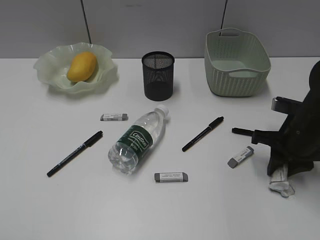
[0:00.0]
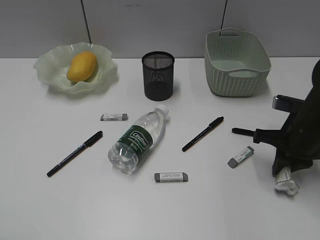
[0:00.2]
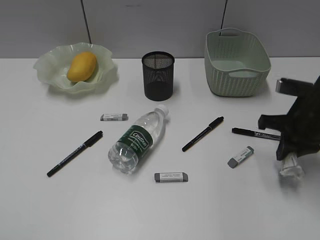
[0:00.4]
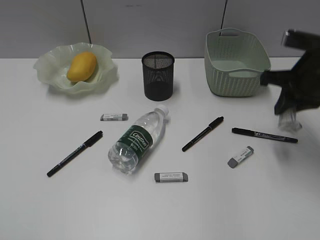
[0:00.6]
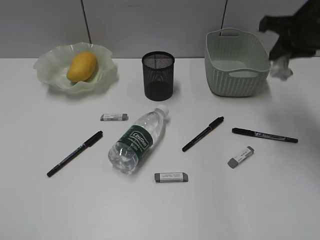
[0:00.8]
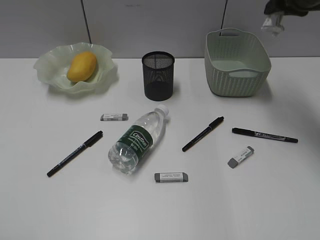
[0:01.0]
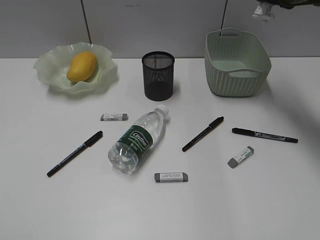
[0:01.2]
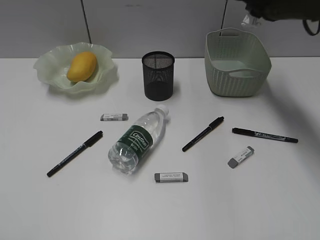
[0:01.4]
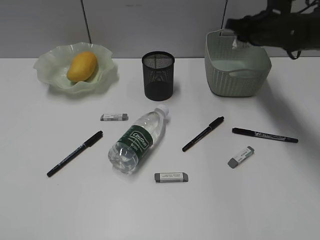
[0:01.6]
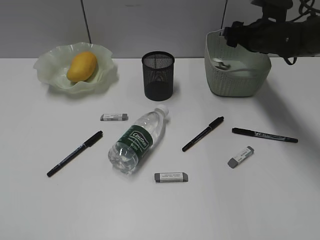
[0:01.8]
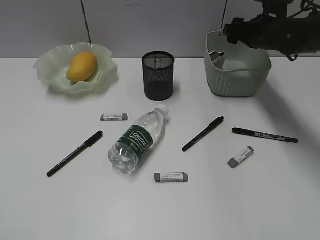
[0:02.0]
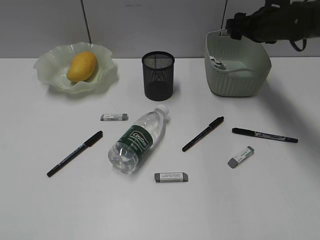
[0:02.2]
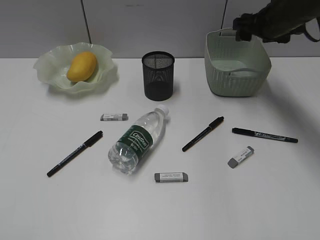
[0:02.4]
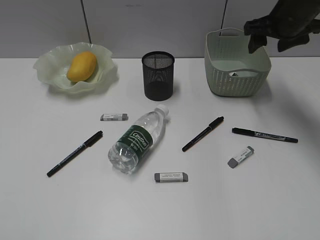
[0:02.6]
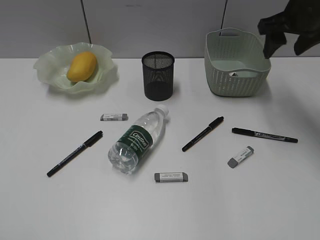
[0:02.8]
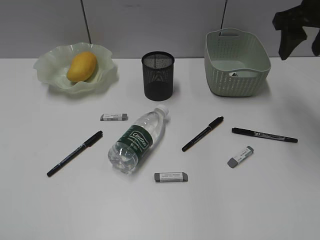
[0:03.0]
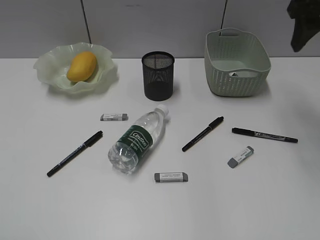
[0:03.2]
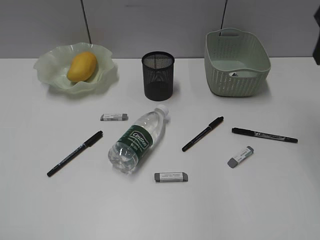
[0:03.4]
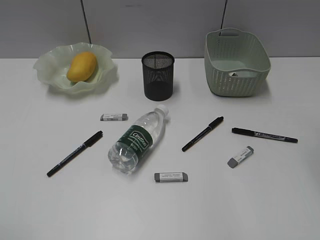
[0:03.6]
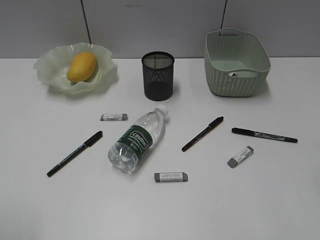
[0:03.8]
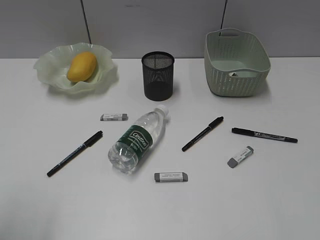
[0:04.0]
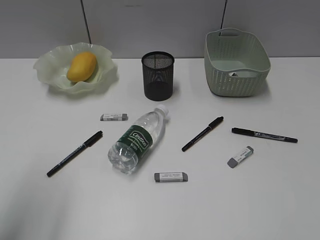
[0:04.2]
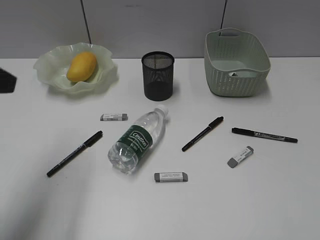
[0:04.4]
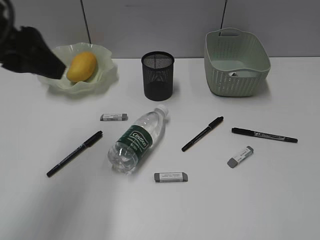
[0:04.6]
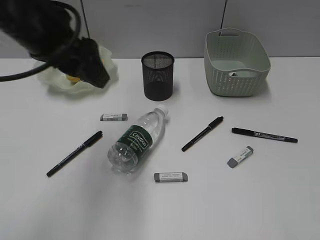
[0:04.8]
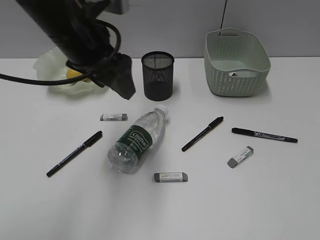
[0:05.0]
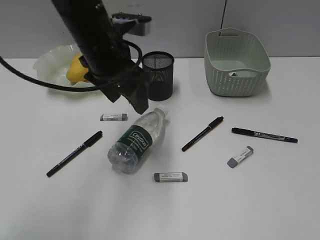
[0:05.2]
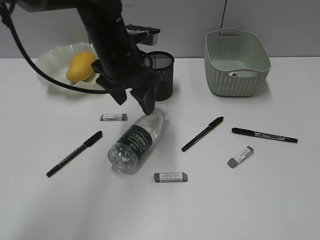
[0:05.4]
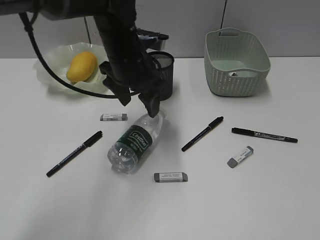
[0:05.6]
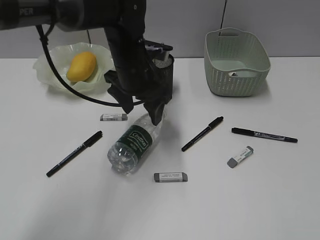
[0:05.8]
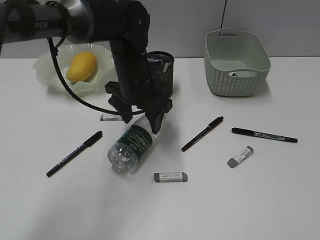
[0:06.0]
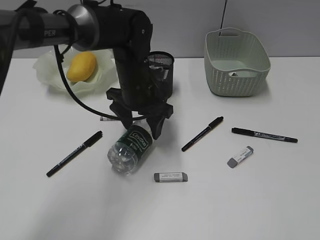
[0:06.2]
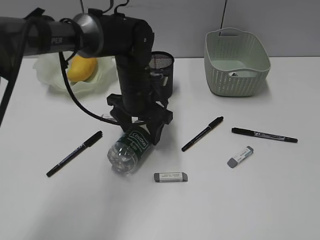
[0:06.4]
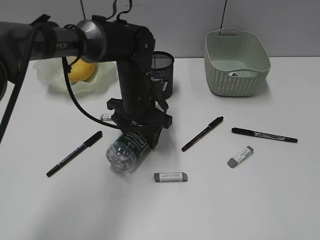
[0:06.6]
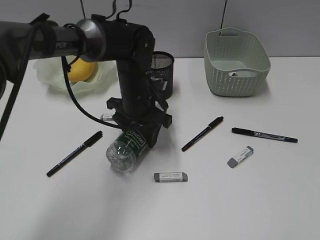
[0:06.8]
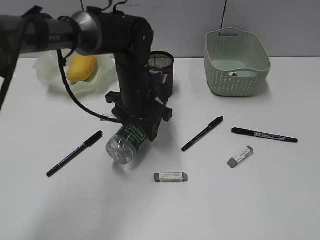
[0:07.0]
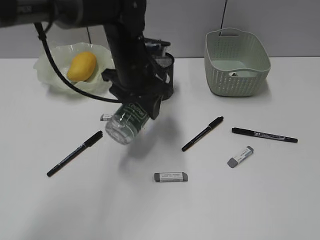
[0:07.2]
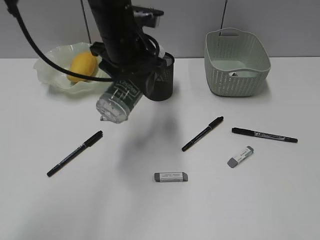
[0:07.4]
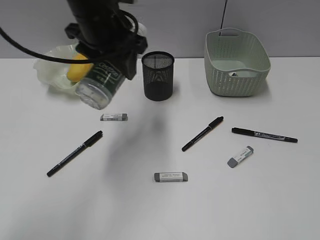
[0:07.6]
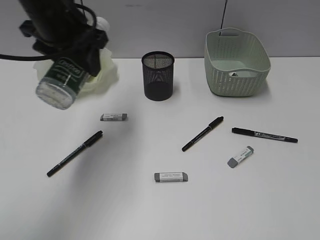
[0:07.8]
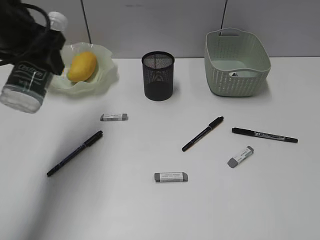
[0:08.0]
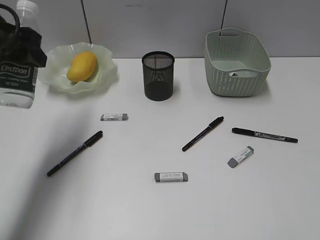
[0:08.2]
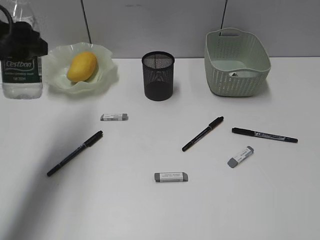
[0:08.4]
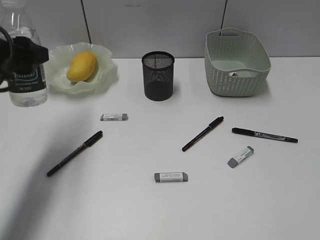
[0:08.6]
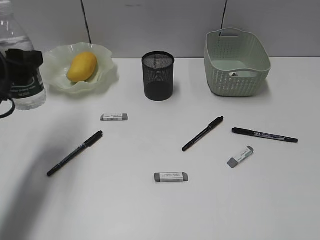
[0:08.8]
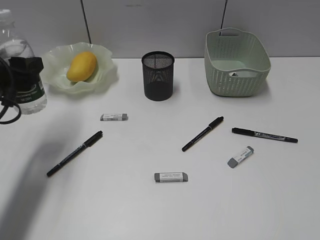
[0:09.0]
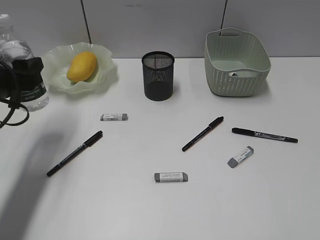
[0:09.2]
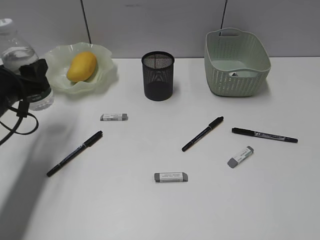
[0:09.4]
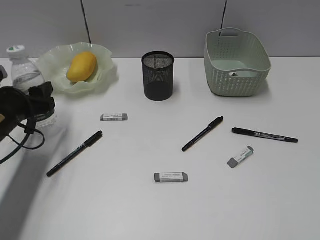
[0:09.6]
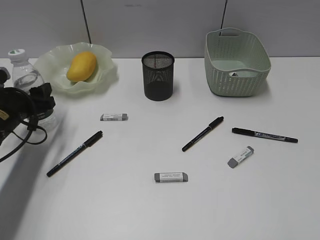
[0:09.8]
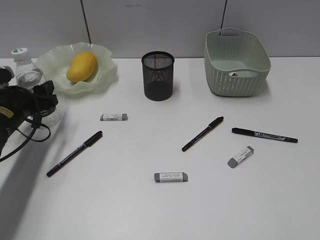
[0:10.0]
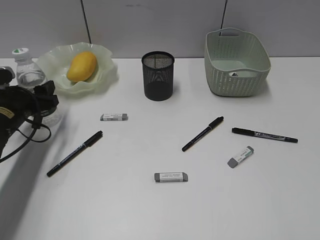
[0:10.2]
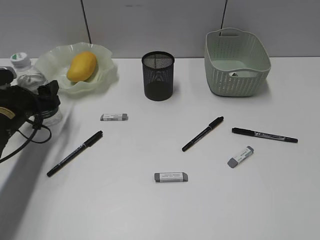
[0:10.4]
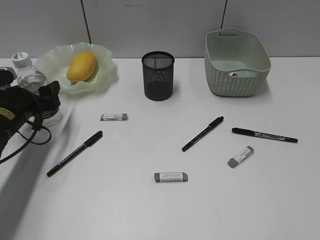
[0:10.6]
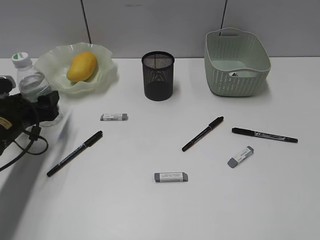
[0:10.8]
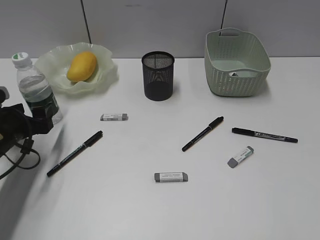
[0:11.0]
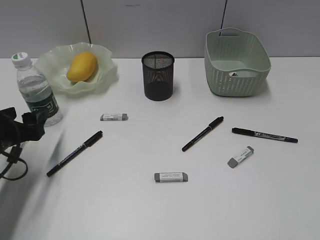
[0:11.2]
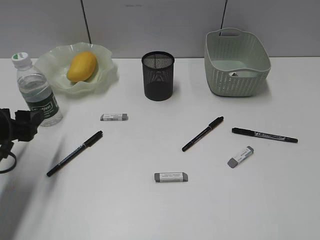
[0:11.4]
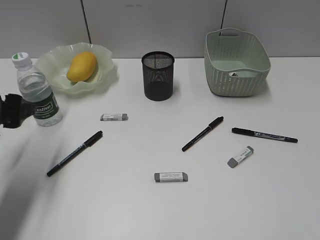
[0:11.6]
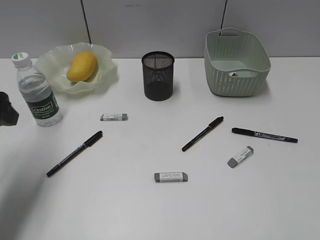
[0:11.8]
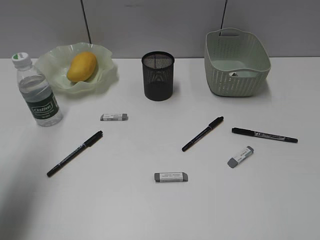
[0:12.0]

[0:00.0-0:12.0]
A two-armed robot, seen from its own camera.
Step, 0:00.2 to 0:01.8: Place the waste paper in the basket with right gripper.
Step, 0:02.0 to 0:06.8: Grasp the bottle with left gripper.
Step, 0:07.0 to 0:11.0: Stand the bottle with left gripper.
0:00.0 to 0:01.6: The right gripper goes approximately 20 cm forward, and travels upward and back again, approximately 20 cm each way.
0:01.6 to 0:03.0: The right gripper heads upward and backward, covering roughly 15 cm, and opens its fingers.
0:03.0 to 0:04.4: The left gripper travels forward by some 20 cm. The right gripper goes some 35 cm backward.
0:04.4 to 0:06.0: The left gripper heads to the right, forward and downward, covering roughly 30 cm.
0:06.0 to 0:07.6: The left gripper moves upward and to the left, about 15 cm.
0:07.6 to 0:09.0: The left gripper is displaced to the left, downward and backward by roughly 20 cm.
0:09.0 to 0:10.4: The left gripper is displaced downward and forward by approximately 10 cm.
0:10.4 to 0:12.0: The left gripper is displaced upward and backward by approximately 20 cm.

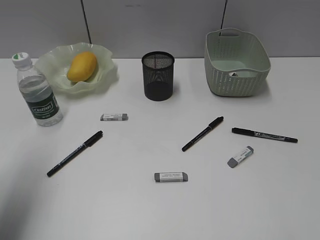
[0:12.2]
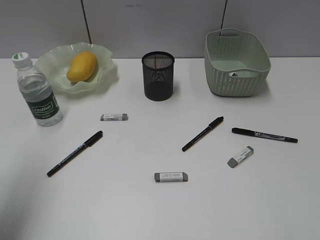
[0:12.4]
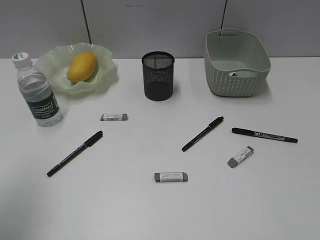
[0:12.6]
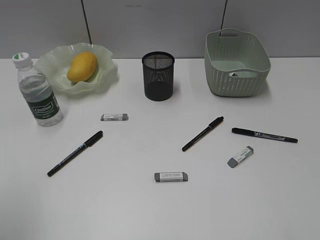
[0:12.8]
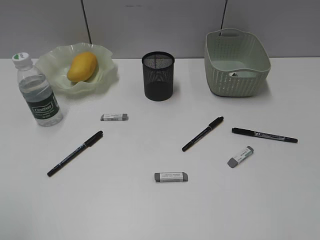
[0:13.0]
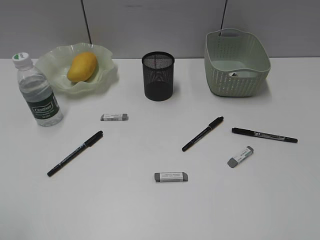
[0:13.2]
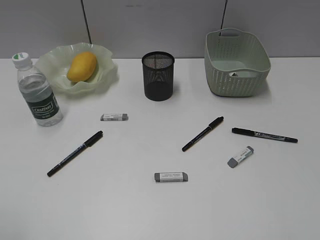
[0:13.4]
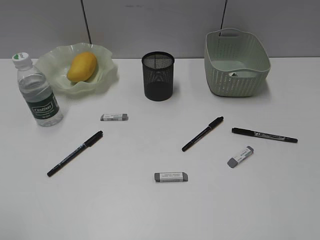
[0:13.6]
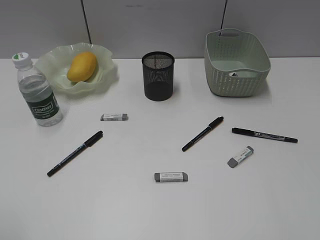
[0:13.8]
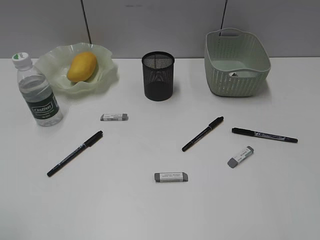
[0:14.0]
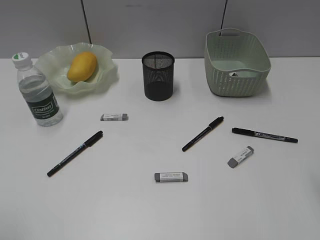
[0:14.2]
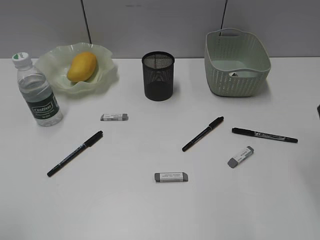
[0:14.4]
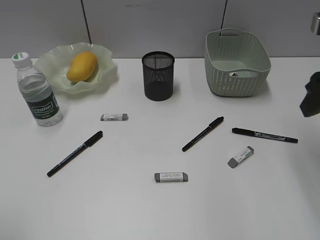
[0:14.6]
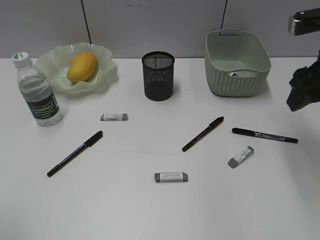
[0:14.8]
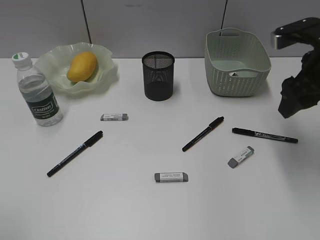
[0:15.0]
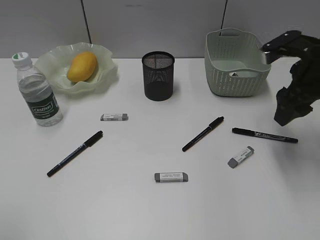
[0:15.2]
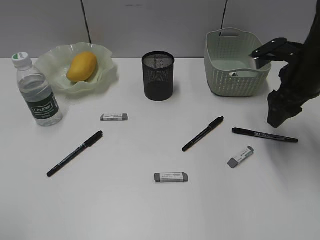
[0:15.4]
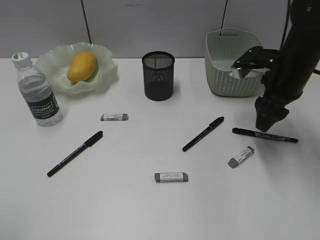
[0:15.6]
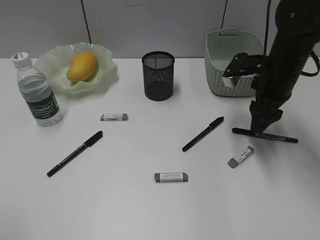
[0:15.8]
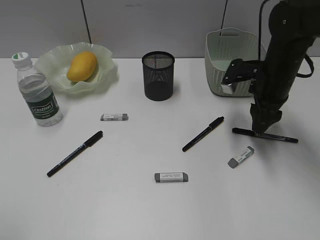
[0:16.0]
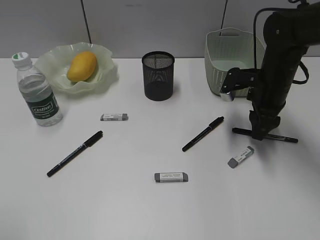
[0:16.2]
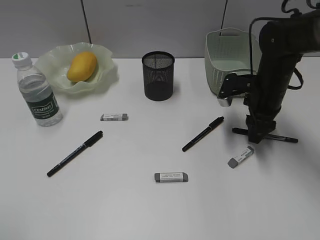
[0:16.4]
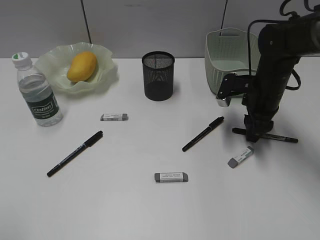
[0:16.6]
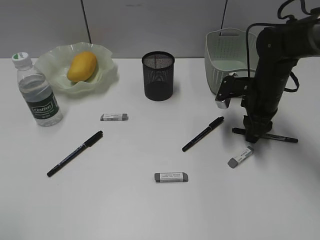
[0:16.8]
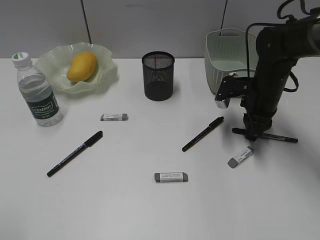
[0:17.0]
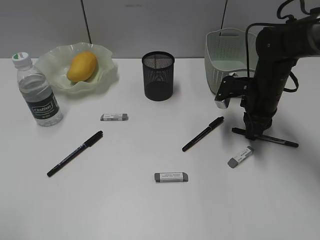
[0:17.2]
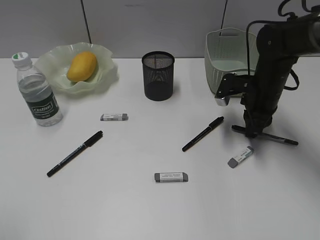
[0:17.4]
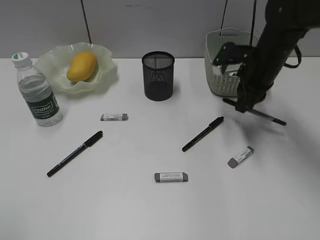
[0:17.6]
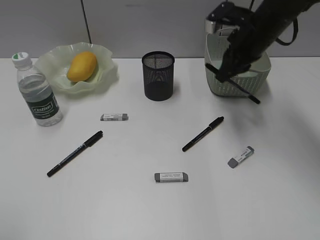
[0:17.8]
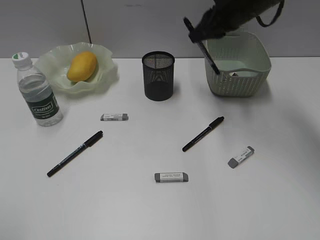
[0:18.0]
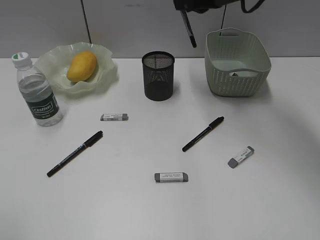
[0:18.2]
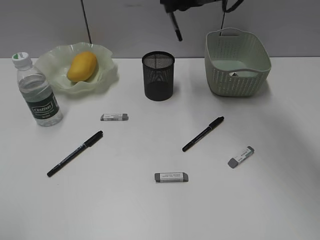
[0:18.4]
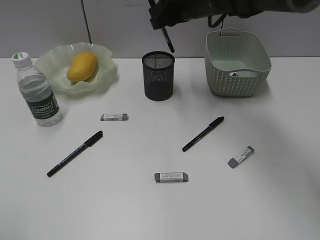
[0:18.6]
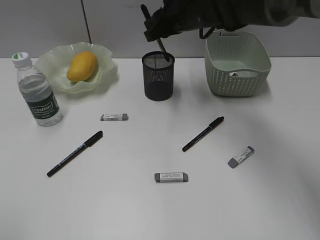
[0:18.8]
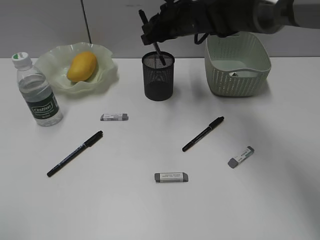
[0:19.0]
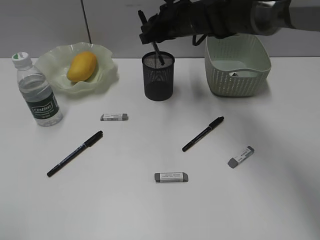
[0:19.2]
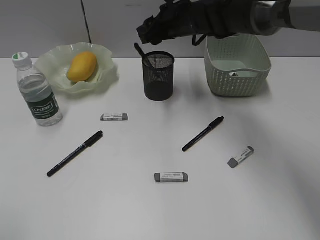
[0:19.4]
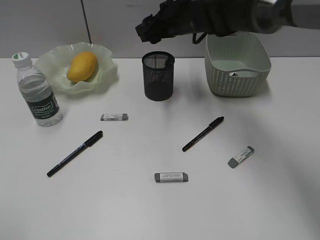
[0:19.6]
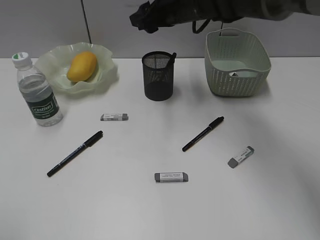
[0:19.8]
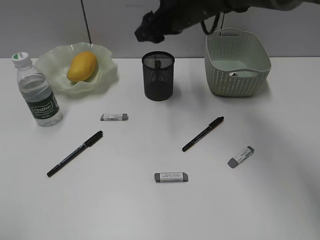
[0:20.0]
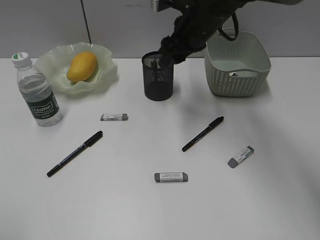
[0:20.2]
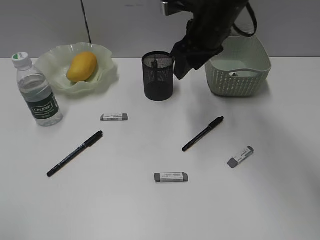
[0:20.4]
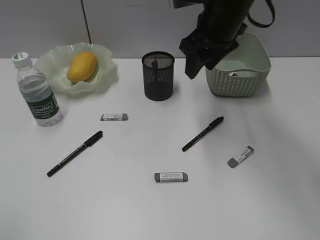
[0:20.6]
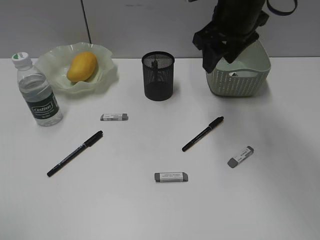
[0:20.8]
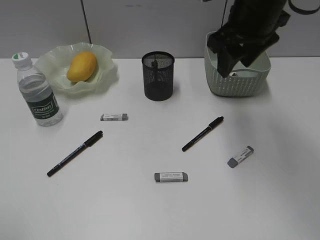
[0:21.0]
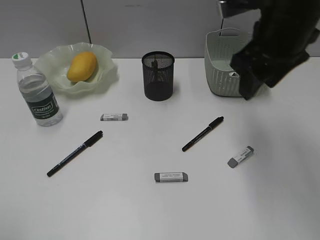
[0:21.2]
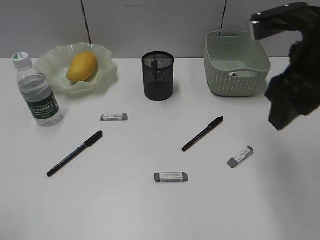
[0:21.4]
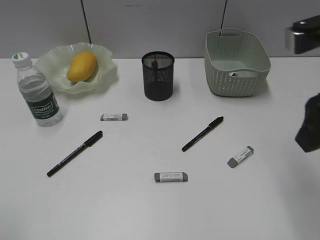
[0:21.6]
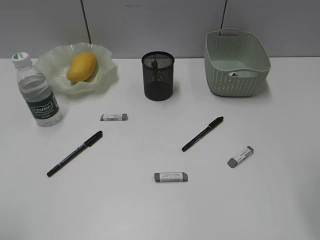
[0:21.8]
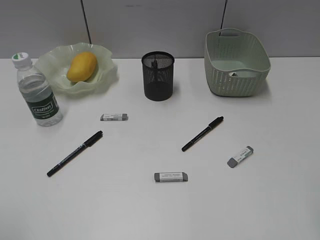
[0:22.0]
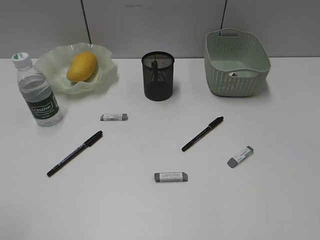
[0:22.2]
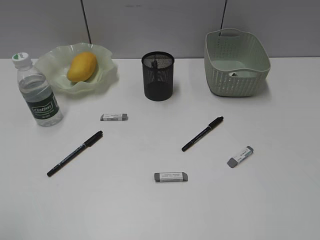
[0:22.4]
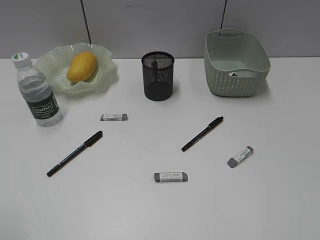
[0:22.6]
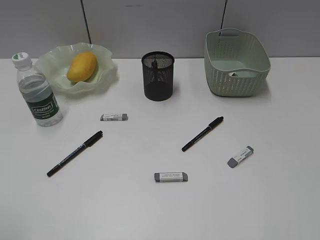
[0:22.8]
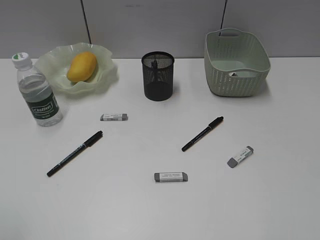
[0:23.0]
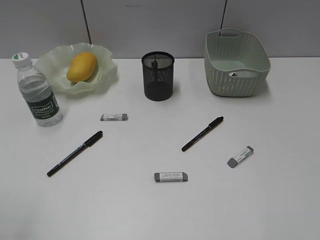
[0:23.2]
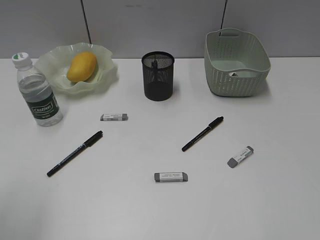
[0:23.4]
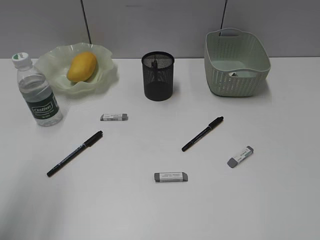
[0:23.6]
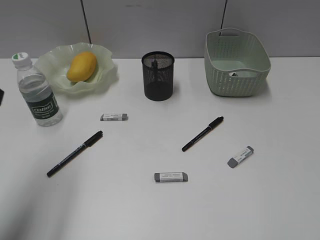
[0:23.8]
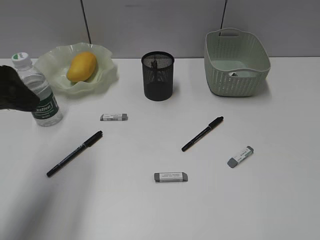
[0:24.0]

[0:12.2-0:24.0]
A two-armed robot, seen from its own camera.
Step, 0:12.2 to 0:17.2: Grasp the black pen with right gripper.
Step, 0:17.4 to 0:19.4: Place the black pen in pen holder with right gripper.
0:12.2 to 0:13.6: The left gripper shifts roughly 15 cm backward.
0:13.6 to 0:15.2: The right gripper shifts approximately 30 cm forward.
0:15.2 to 0:16.6: The right gripper heads downward and forward, covering approximately 10 cm.
0:16.6 to 0:18.2: The right gripper shifts approximately 20 cm upward and to the left, and closes its fingers.
0:18.2 to 0:19.6: The right gripper is displaced downward and to the left by some 10 cm, and opens its fingers.
0:19.6 to 0:21.0: The right gripper heads backward, upward and to the right, covering approximately 15 cm.
0:21.0 to 0:22.6: The right gripper heads backward and to the right, covering roughly 35 cm.
0:22.6 to 0:24.0: The left gripper is displaced forward by approximately 20 cm.
